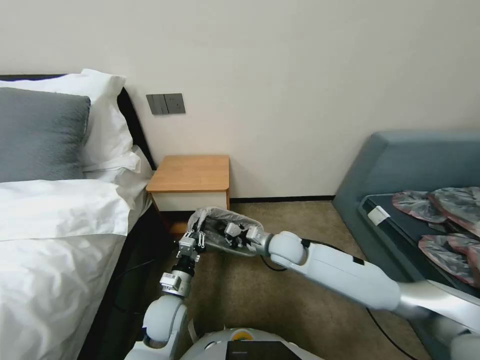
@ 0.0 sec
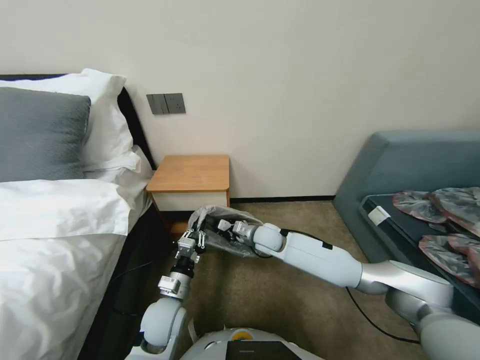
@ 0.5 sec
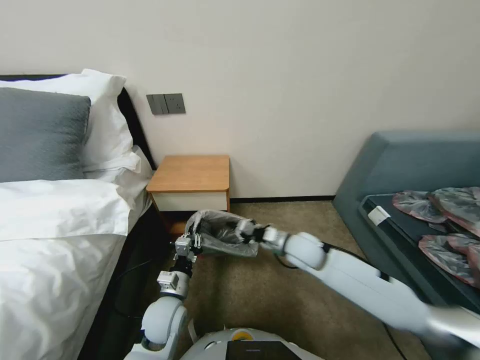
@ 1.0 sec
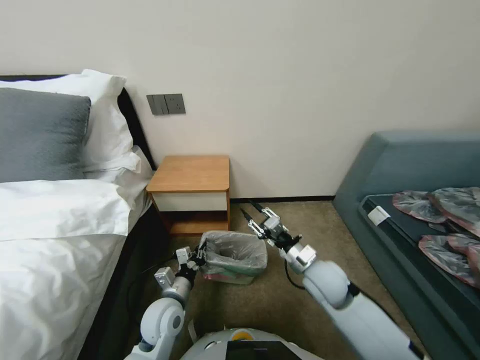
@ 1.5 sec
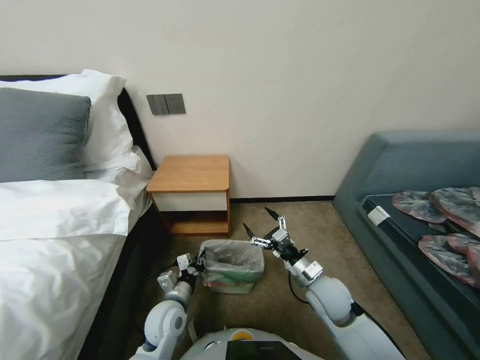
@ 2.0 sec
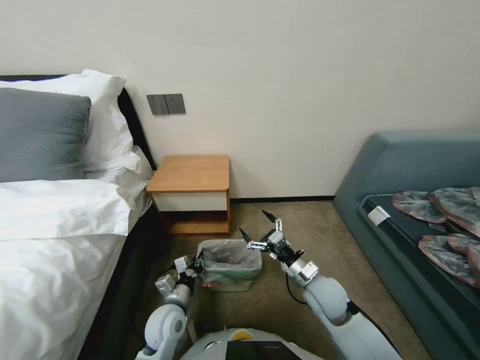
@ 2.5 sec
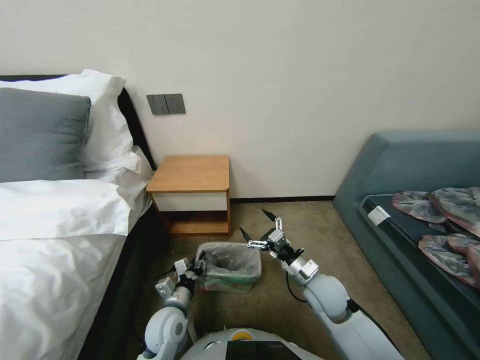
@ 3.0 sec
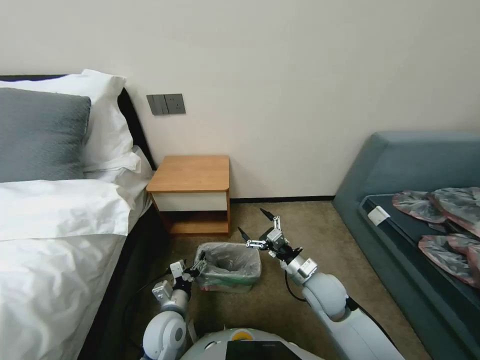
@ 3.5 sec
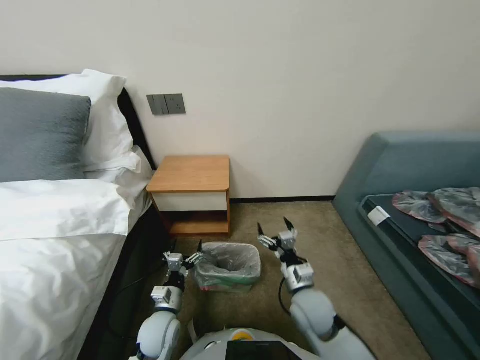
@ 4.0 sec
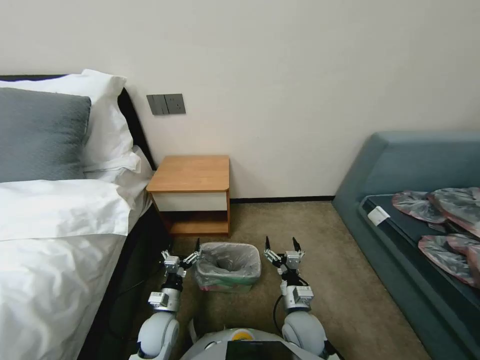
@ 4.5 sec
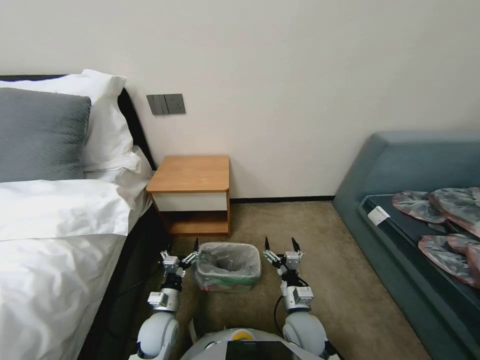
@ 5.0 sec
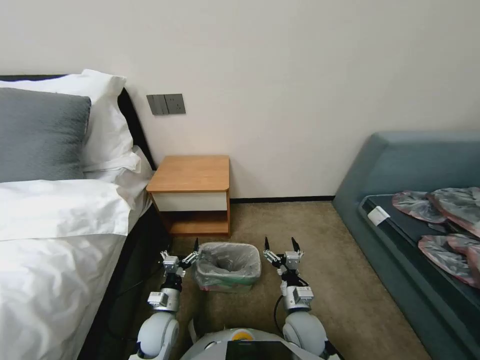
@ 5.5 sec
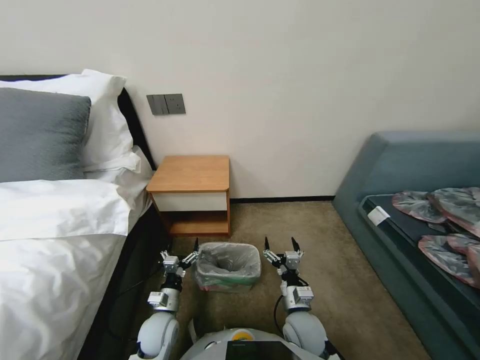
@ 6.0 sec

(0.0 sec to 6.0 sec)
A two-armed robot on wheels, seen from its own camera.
Task of the whole recording: Pick up the garbage bag from the table and place it over the trash can.
0.0 sec - 2.0 sec: The right gripper is displaced backward and to the right by roughly 15 cm, and opens its fingers.
2.0 sec - 4.0 sec: The left gripper opens.
4.0 sec - 6.0 sec: The right gripper goes roughly 10 cm downward and backward.

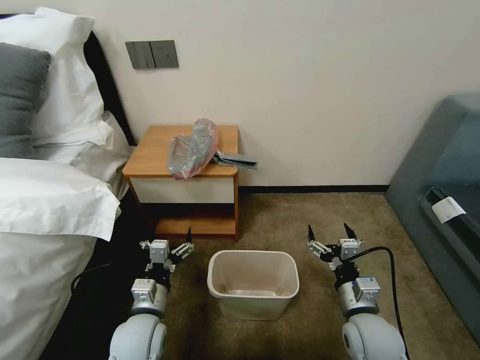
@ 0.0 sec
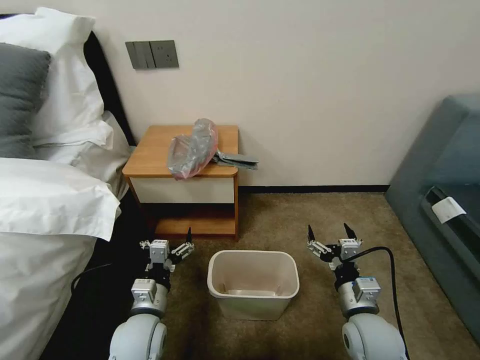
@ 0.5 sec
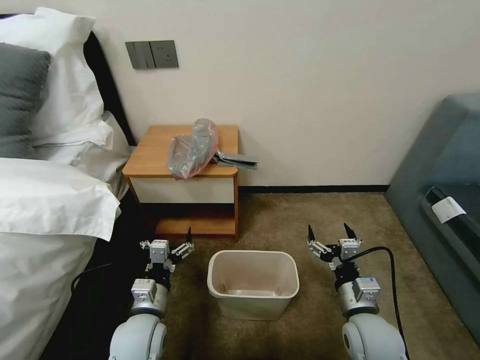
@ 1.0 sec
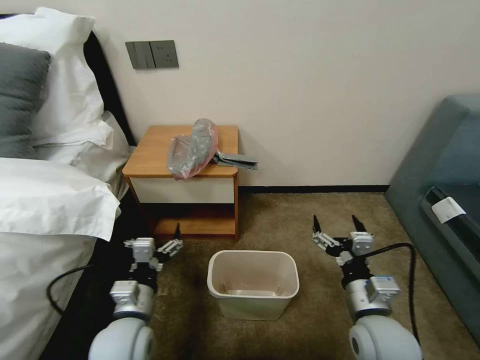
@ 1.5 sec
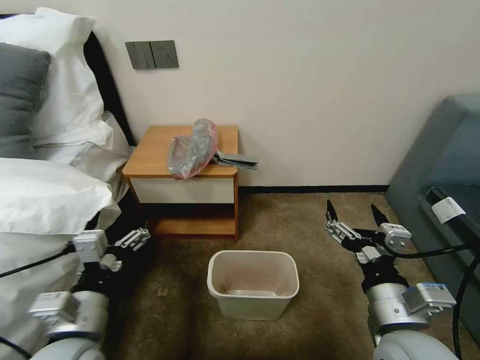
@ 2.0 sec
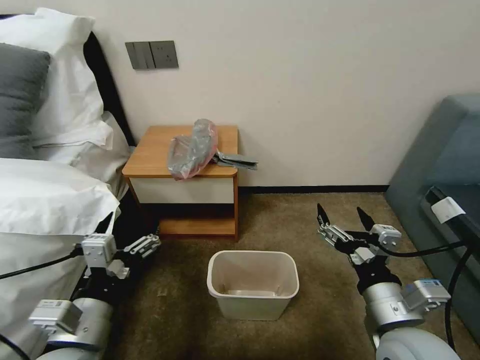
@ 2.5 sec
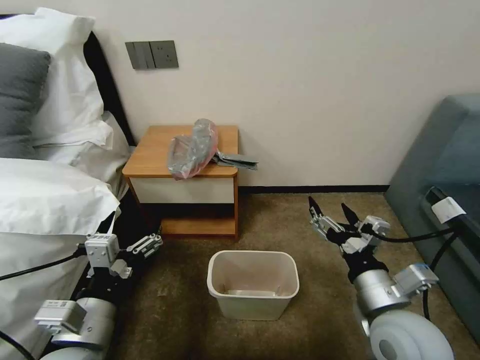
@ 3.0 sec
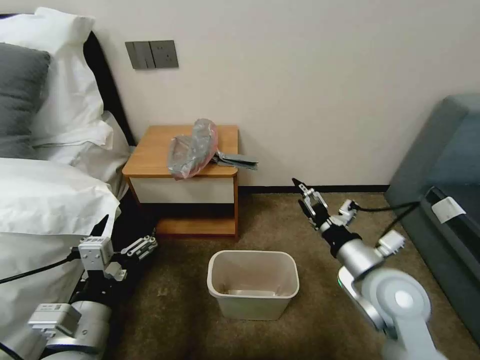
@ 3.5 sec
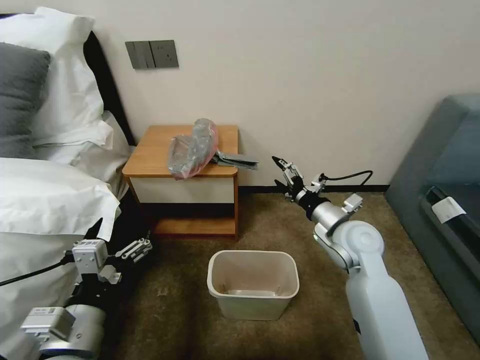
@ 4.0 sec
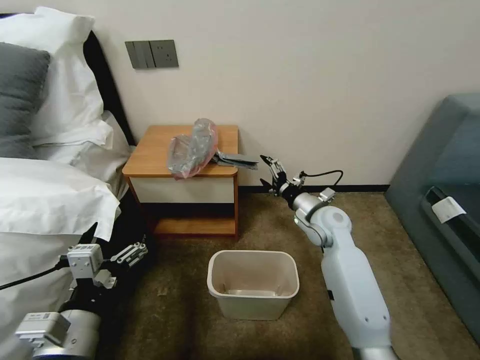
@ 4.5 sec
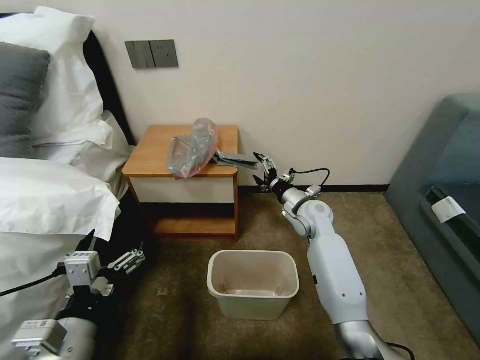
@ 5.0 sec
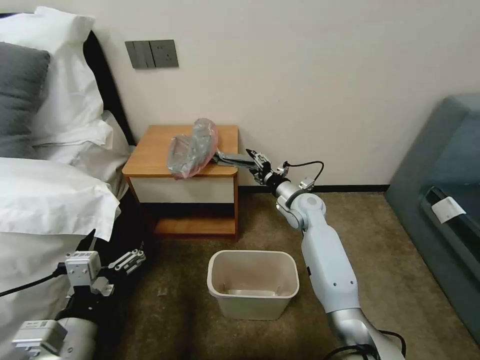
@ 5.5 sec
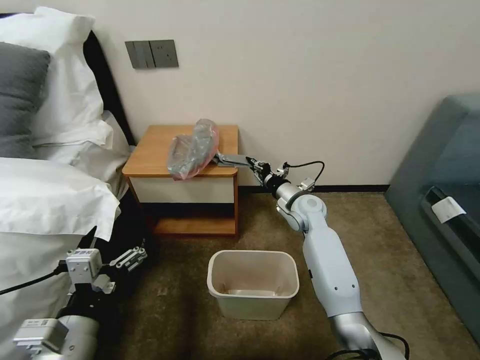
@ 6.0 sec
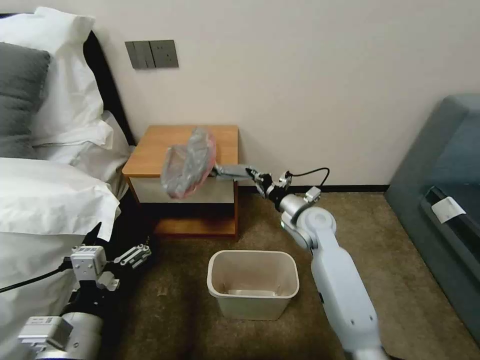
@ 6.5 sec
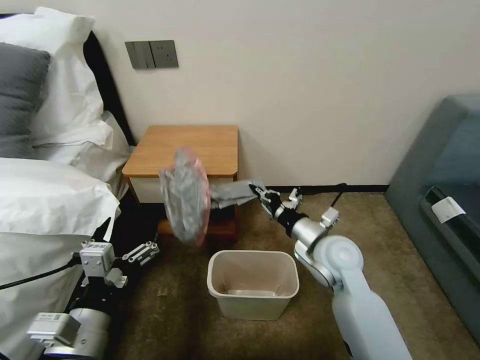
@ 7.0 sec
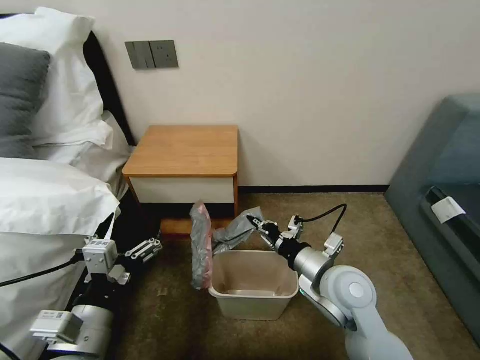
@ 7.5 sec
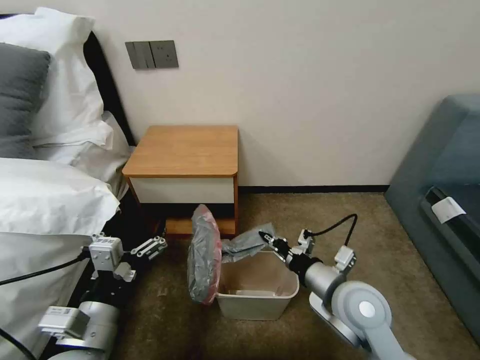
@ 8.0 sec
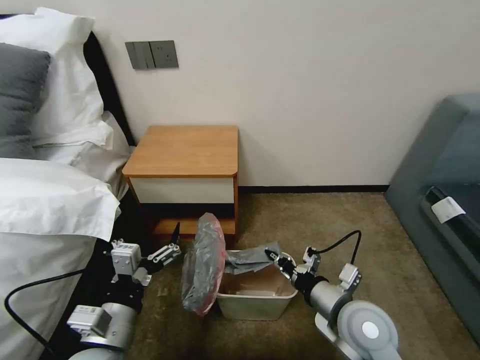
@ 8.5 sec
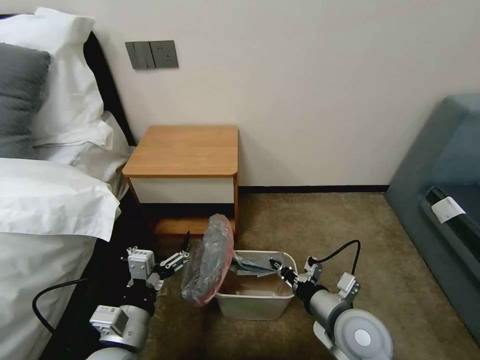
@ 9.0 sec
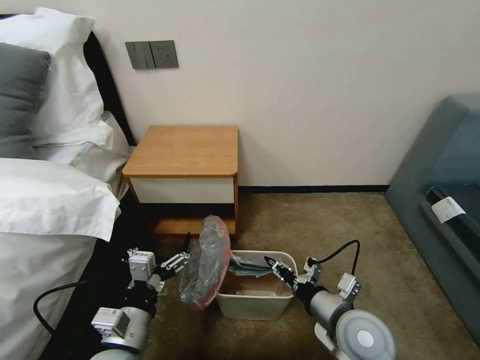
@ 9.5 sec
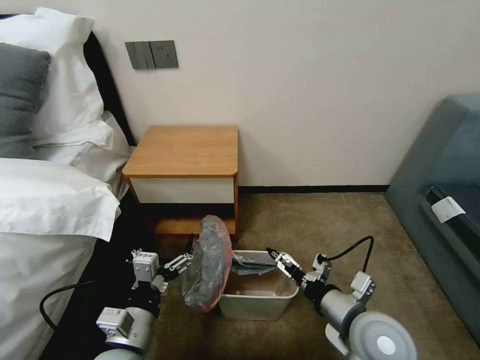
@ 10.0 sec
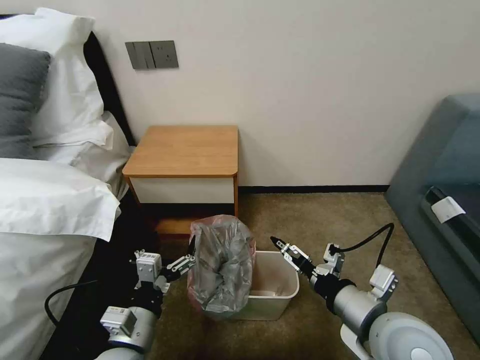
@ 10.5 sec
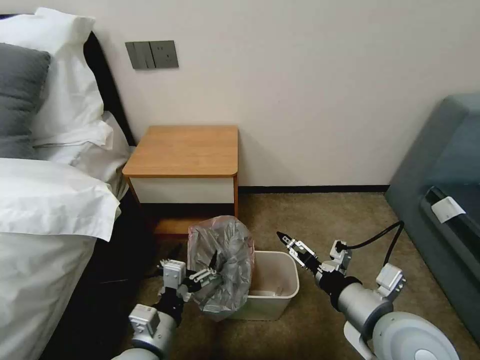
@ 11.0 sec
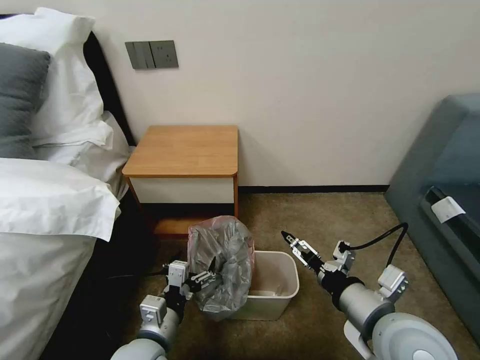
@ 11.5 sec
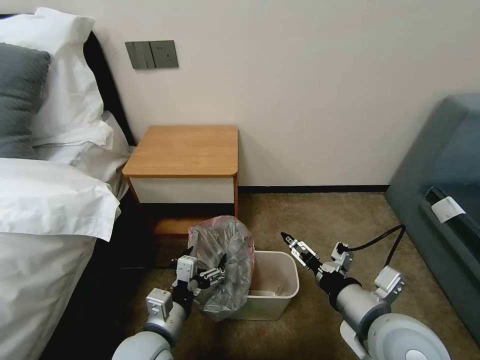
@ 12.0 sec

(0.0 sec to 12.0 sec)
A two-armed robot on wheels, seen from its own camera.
Task of the whole recording: Pick up the garbage bag from the table and place it over the trash can.
2.0 sec - 4.0 sec: The right gripper heads forward, covering some 20 cm.
4.0 sec - 6.0 sec: The right gripper moves forward, downward and to the left, roughly 15 cm, and closes up.
6.0 sec - 8.0 sec: The right gripper moves backward, about 25 cm.
8.0 sec - 10.0 sec: The right gripper ends up about 5 cm from where it was, and opens. Meanwhile the left gripper goes roughly 5 cm downward.
10.0 sec - 12.0 sec: The left gripper moves some 5 cm. Meanwhile the right gripper heads upward, covering roughly 5 cm.

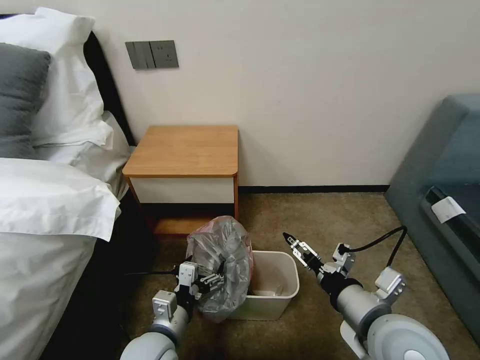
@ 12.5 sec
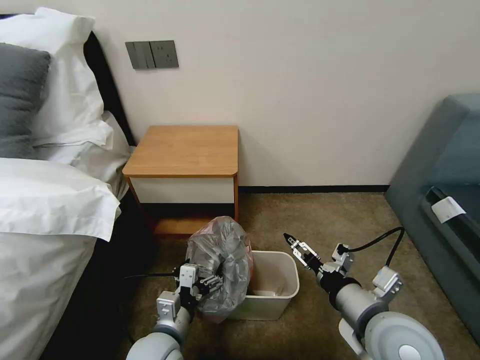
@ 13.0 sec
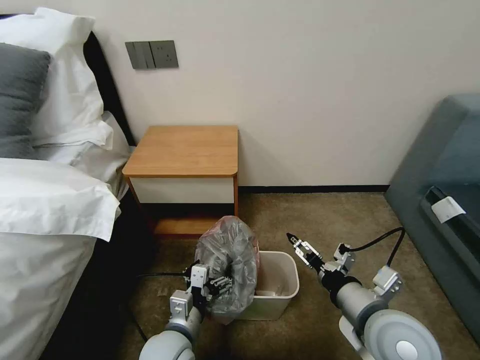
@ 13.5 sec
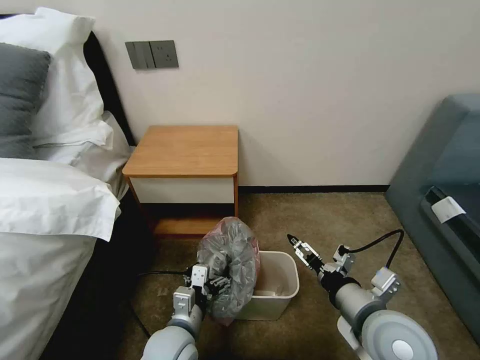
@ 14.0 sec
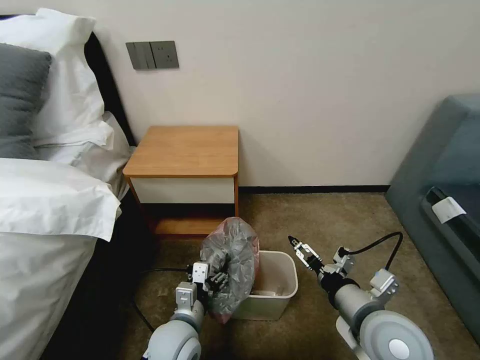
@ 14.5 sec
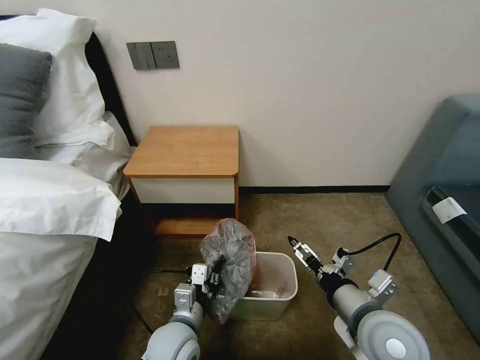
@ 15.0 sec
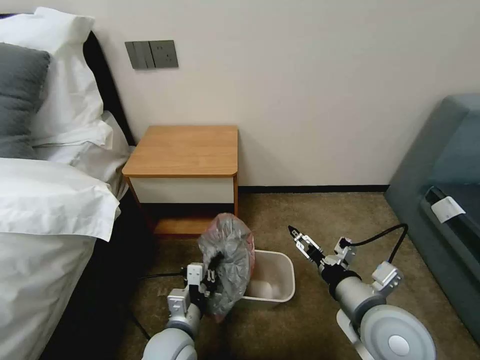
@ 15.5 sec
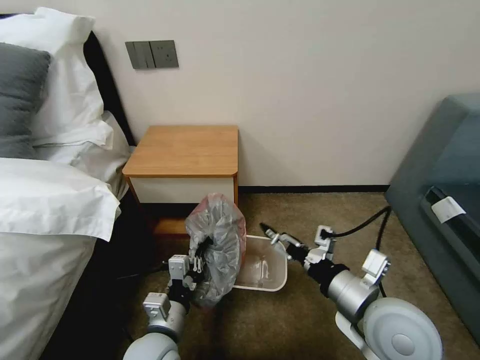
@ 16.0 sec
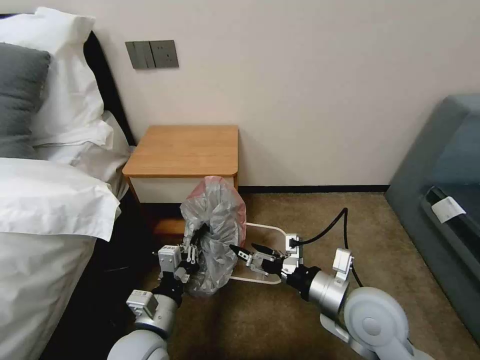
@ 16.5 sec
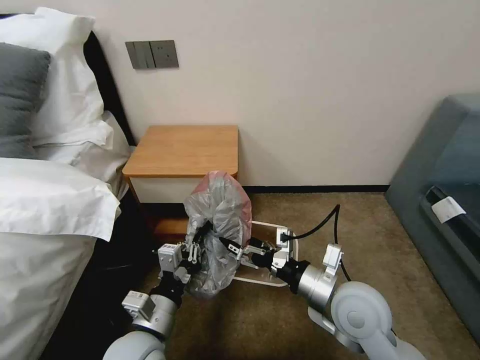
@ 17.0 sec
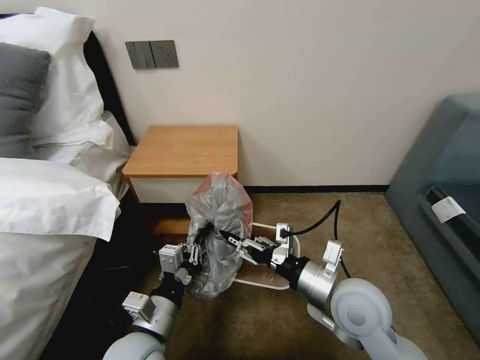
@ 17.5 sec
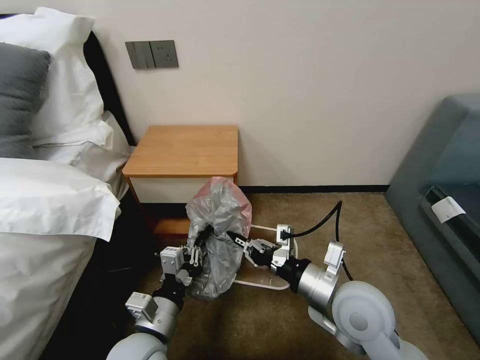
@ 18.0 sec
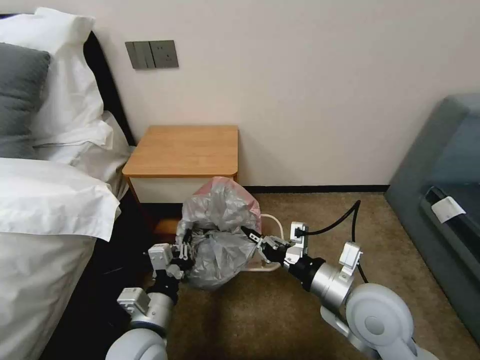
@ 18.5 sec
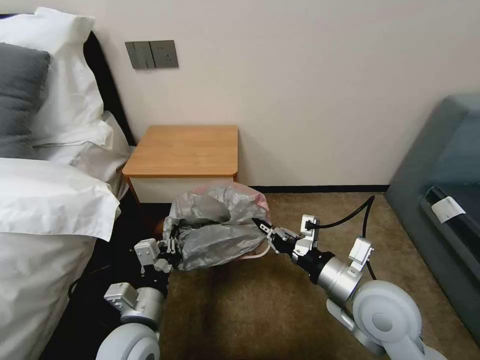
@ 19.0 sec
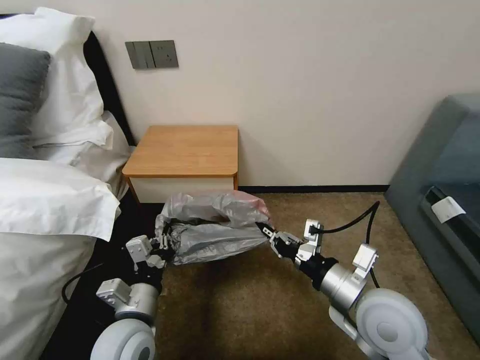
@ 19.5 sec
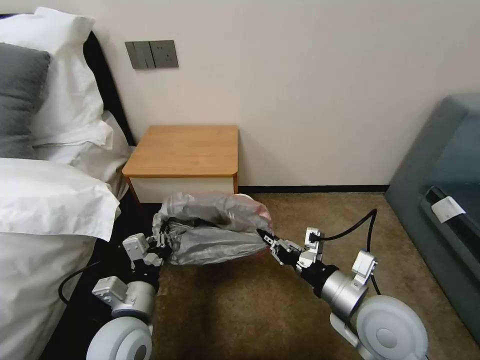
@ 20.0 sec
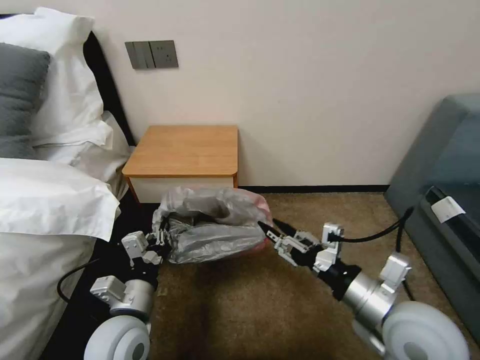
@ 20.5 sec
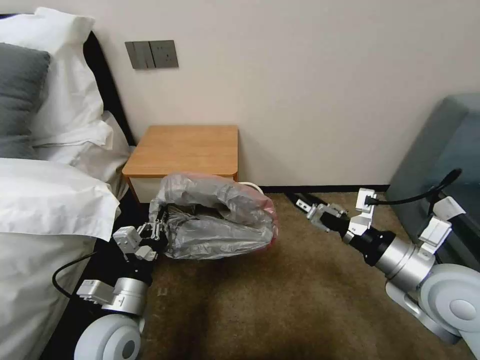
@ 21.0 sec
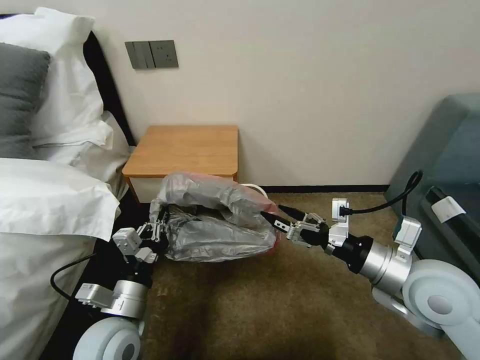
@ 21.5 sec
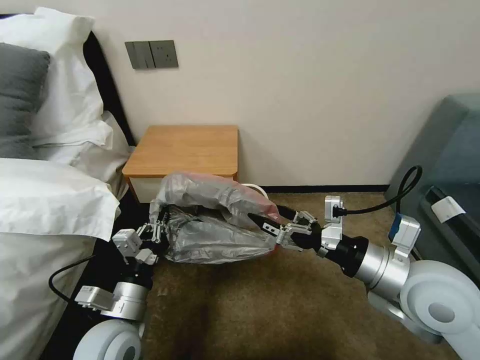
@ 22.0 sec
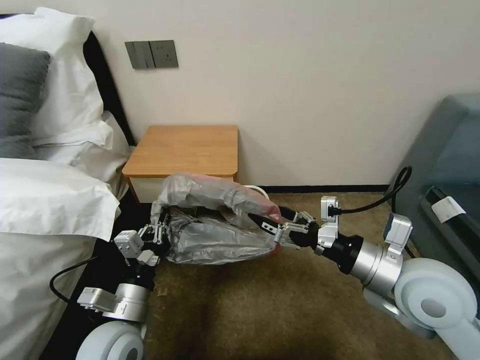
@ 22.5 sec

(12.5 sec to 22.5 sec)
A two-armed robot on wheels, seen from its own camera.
Task of the whole recording: Pick up the garbage bag from the table and place it over the trash can.
12.5 sec - 14.5 sec: The grippers make only small movements.
14.5 sec - 16.5 sec: The left gripper moves about 5 cm, and closes its fingers.
16.5 sec - 18.5 sec: The right gripper closes up.
18.5 sec - 20.5 sec: The right gripper changes place by some 5 cm, and opens its fingers.
20.5 sec - 22.5 sec: The right gripper moves some 5 cm.
